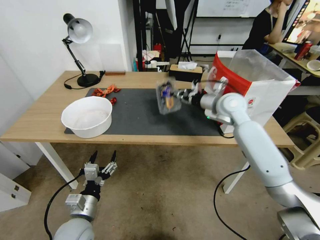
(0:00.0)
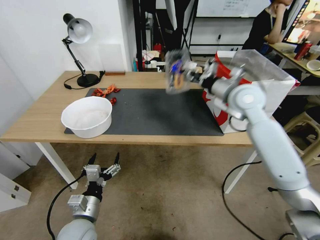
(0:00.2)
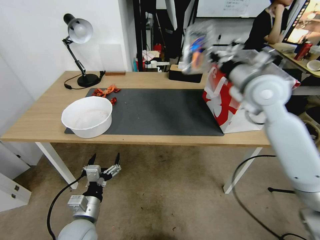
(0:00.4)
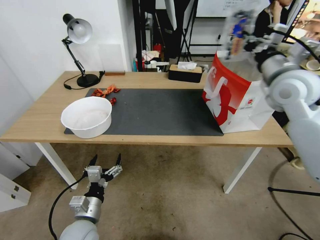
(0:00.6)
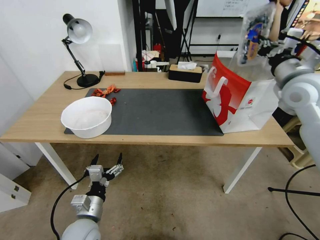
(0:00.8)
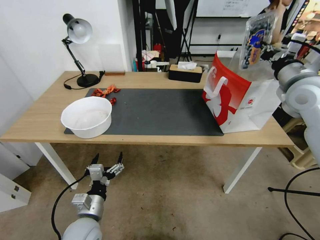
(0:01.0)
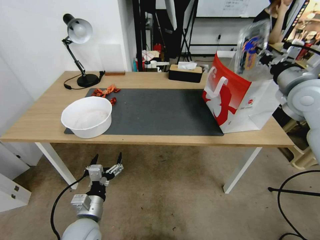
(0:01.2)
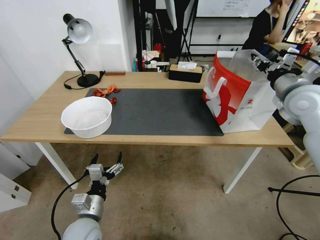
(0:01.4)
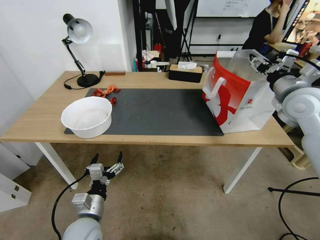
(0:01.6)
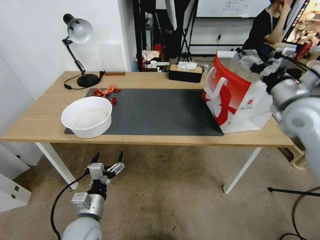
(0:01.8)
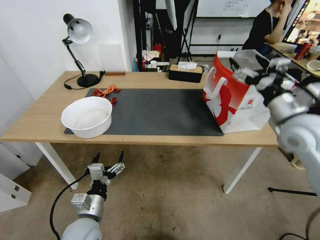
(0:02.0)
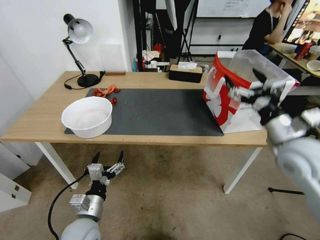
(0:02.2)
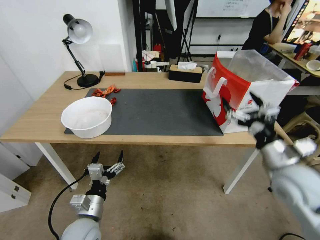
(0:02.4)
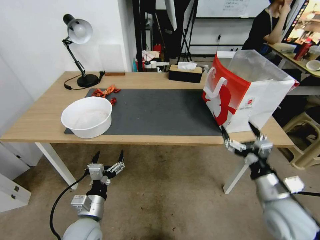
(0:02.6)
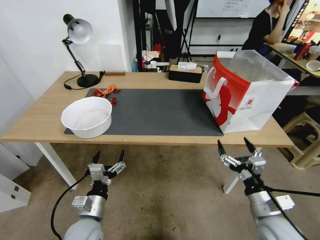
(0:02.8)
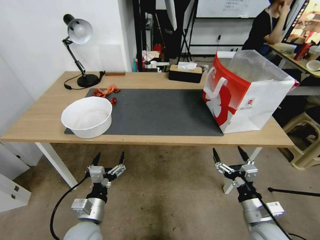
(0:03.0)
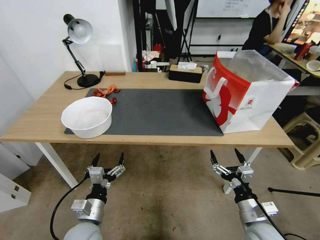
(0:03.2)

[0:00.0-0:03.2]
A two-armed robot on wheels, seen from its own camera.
Task of the whole recording: Close the takeout container lid, then place the container into the takeout bag.
0:00.0 to 0:01.6: The right gripper moves to the right, backward and upward, roughly 20 cm, and opens its fingers.
0:01.6 to 0:03.2: The right gripper moves downward and backward, some 40 cm, and opens.
